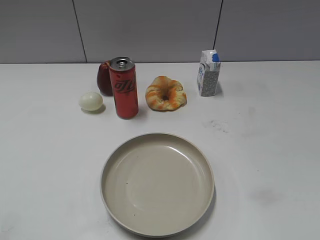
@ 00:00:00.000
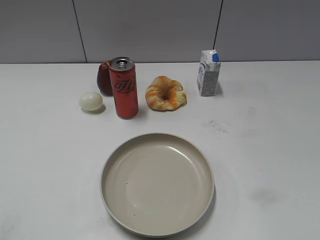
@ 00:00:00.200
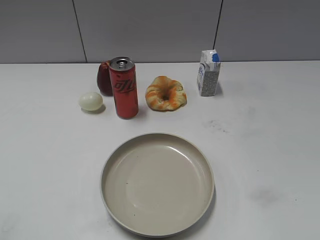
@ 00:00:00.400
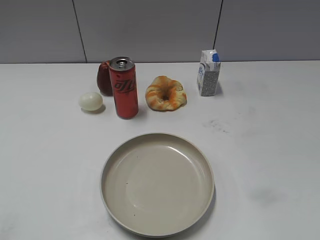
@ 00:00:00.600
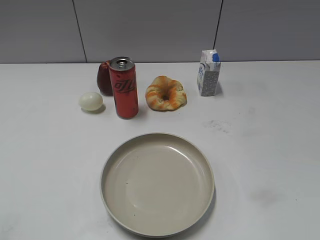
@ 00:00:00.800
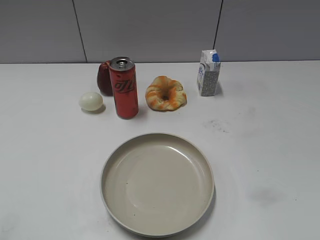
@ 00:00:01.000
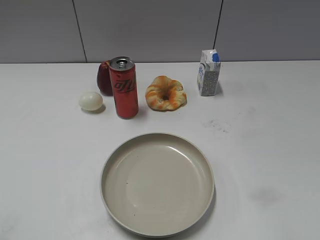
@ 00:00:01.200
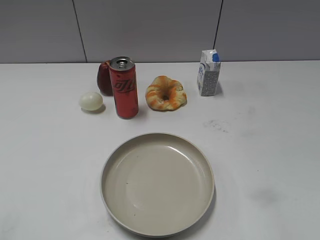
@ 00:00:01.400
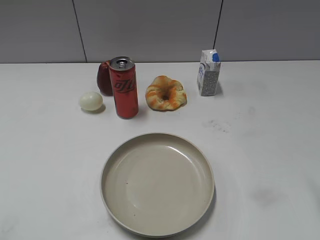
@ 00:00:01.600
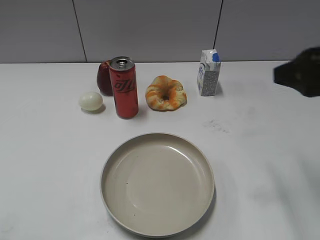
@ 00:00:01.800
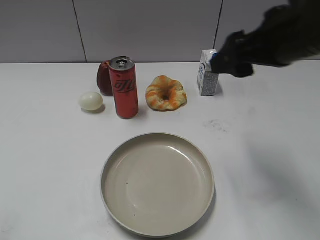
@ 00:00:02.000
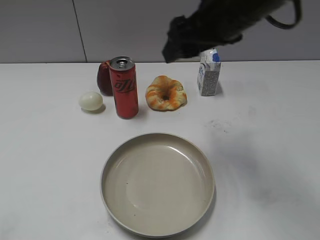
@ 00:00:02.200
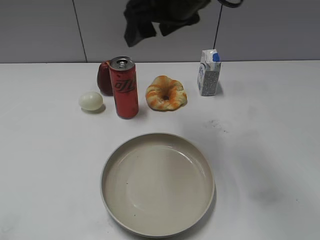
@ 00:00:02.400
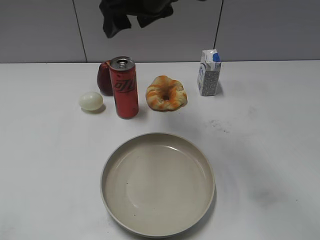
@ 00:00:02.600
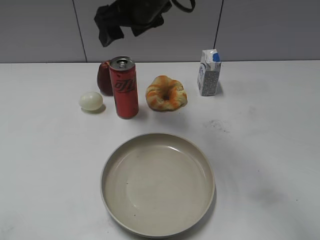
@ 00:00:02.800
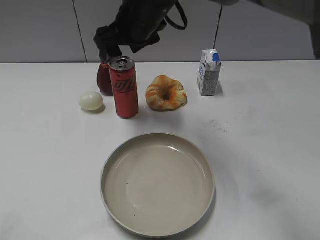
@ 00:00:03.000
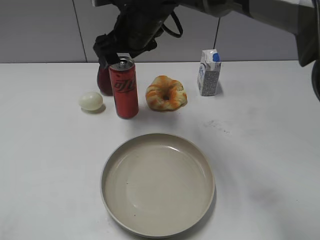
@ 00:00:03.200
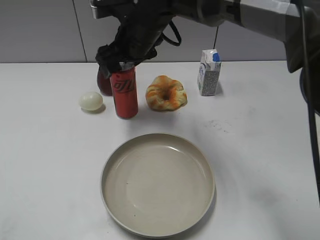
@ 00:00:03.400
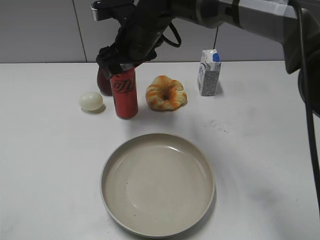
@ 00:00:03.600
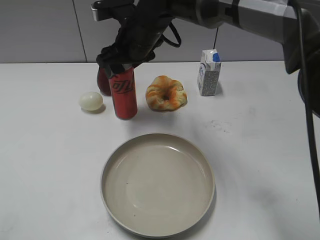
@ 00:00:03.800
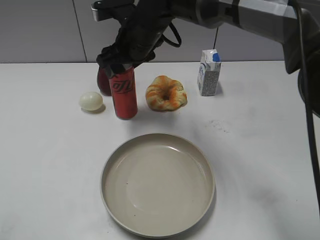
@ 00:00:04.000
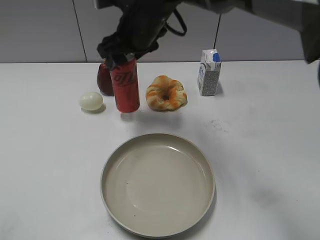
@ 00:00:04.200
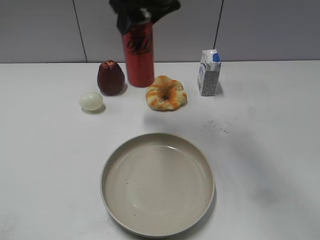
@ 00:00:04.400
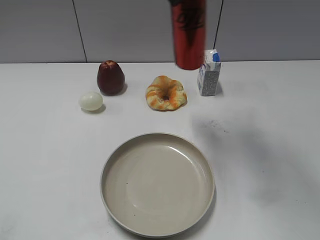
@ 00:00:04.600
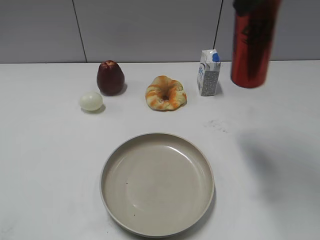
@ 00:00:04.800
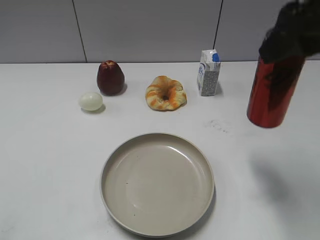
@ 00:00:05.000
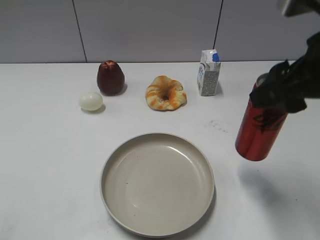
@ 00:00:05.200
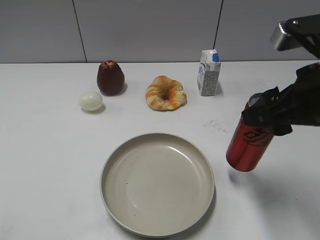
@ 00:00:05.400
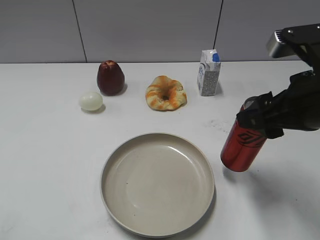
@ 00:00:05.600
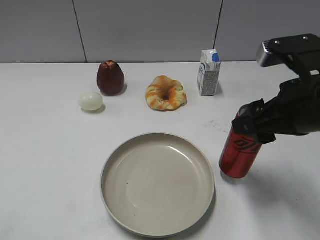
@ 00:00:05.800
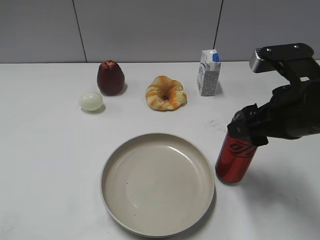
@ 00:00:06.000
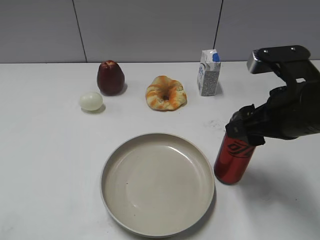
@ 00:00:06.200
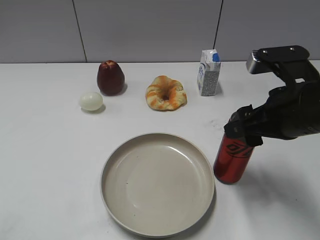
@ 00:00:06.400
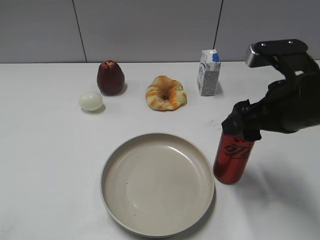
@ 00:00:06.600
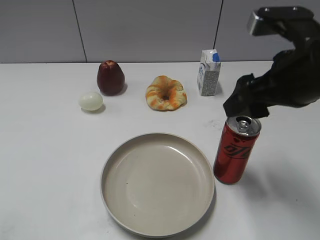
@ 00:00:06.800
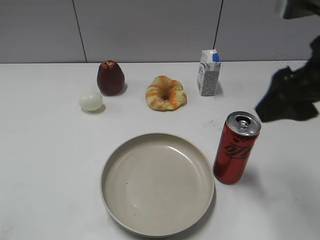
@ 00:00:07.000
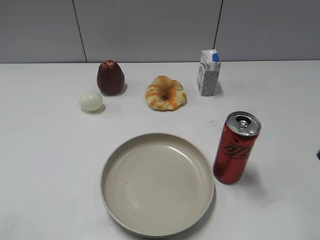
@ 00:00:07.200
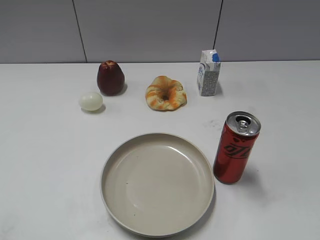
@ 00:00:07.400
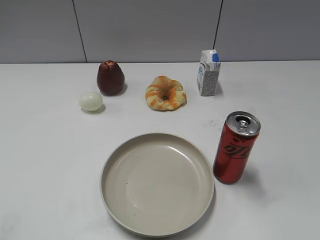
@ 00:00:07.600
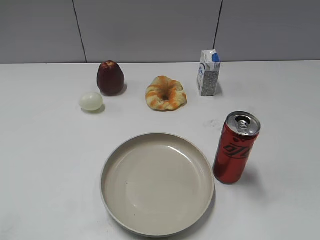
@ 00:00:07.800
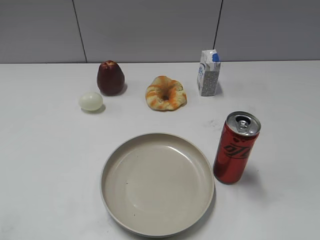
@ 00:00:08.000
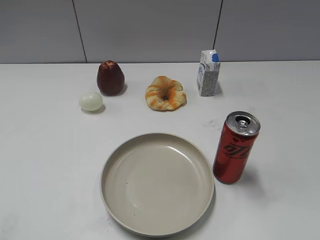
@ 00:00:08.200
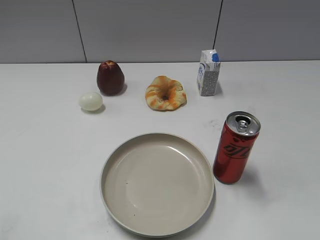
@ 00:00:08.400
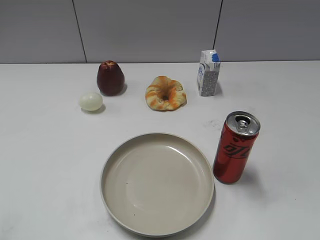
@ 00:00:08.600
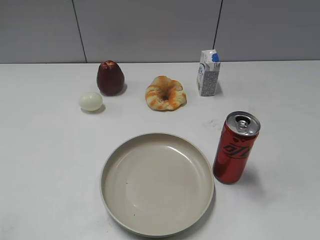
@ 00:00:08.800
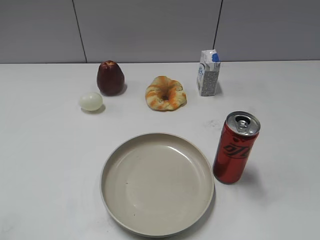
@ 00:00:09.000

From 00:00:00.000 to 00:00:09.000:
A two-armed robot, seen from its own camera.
Step, from 00:00:01.000 to 00:00:04.000: Grasp the cola with right gripper.
Step, from 00:00:04.200 to 00:00:06.800: Place the cola on the table with right gripper.
From 00:00:01.600 to 00:00:03.000: The right gripper heads to the left and forward, covering approximately 35 cm, and opens up.
From 00:00:03.000 to 00:00:04.400: The right gripper travels upward and to the right by about 10 cm, and closes its fingers.
From 00:00:04.400 to 00:00:06.000: The right gripper is displaced to the right, backward and downward by approximately 25 cm.
From 00:00:06.000 to 00:00:07.600: The right gripper moves backward and to the right, some 20 cm, and opens.
